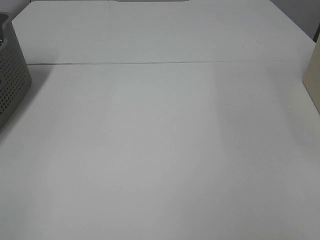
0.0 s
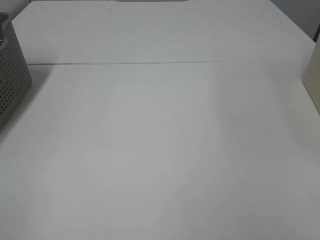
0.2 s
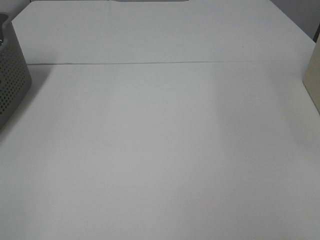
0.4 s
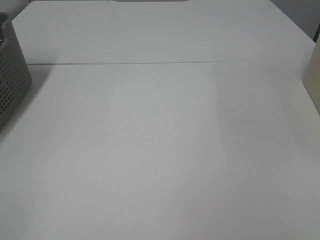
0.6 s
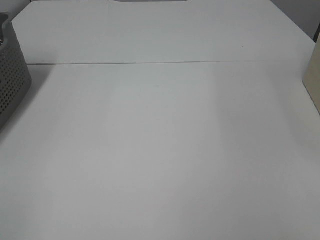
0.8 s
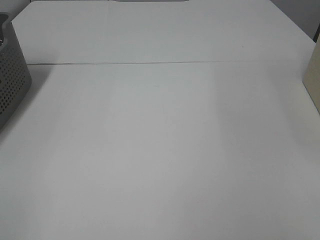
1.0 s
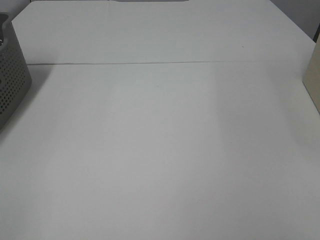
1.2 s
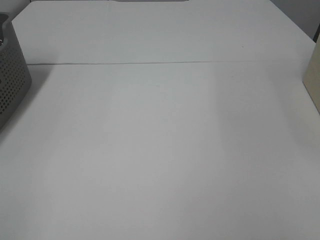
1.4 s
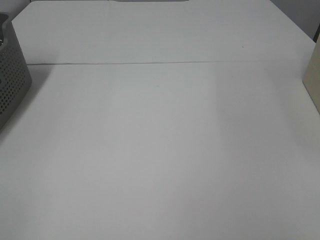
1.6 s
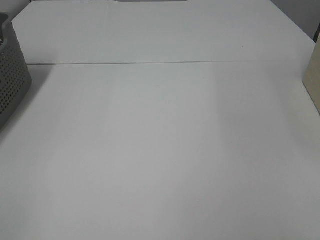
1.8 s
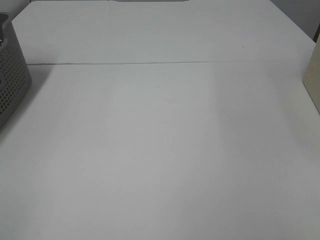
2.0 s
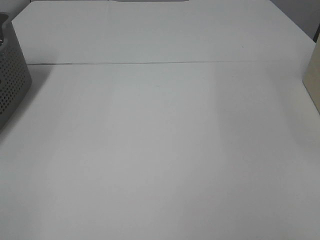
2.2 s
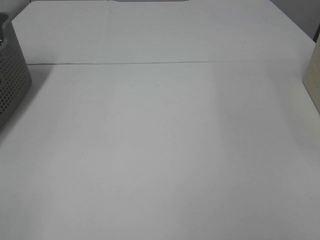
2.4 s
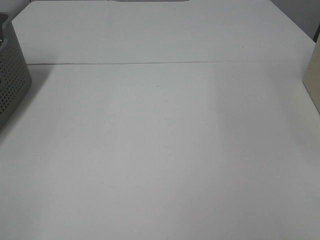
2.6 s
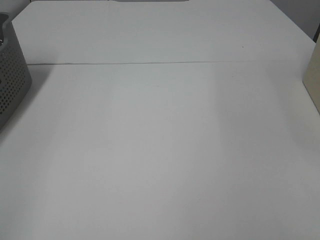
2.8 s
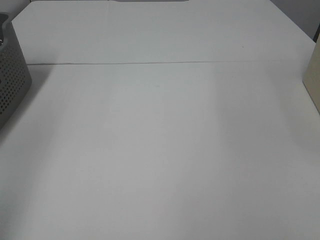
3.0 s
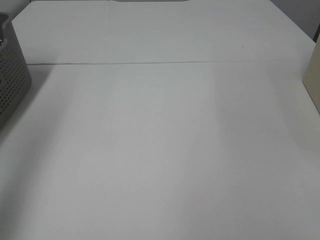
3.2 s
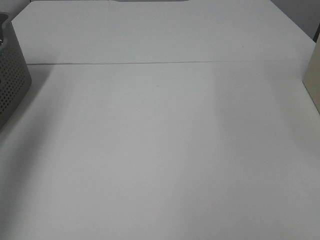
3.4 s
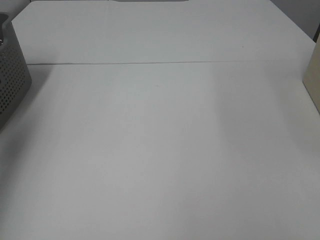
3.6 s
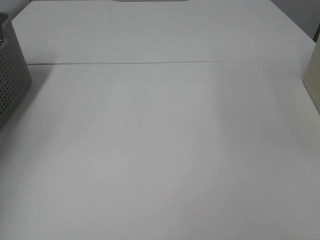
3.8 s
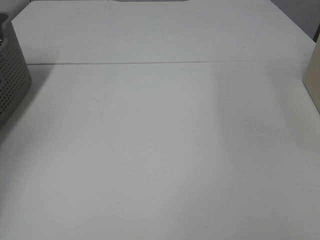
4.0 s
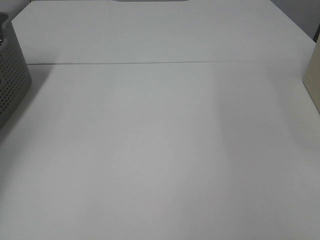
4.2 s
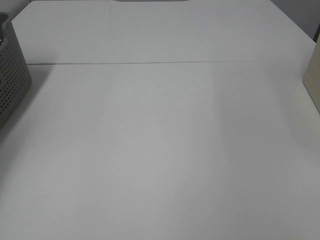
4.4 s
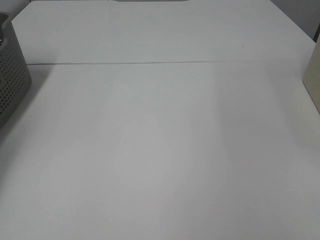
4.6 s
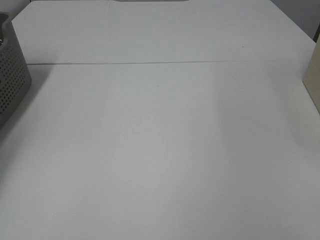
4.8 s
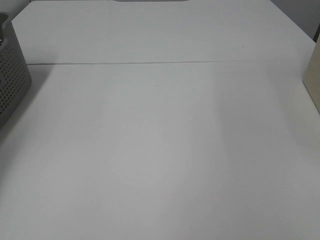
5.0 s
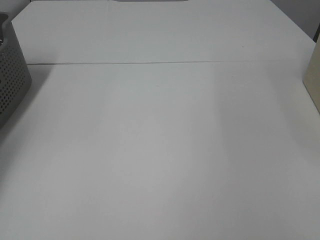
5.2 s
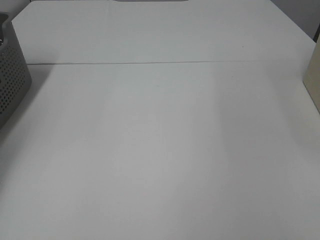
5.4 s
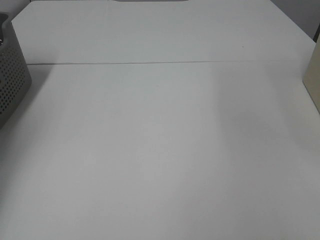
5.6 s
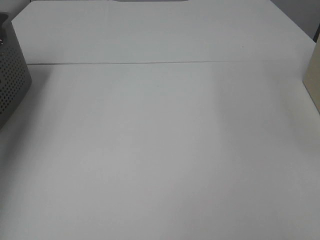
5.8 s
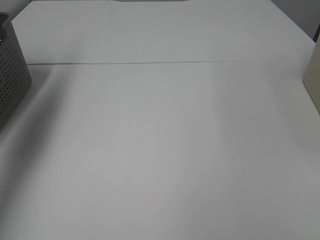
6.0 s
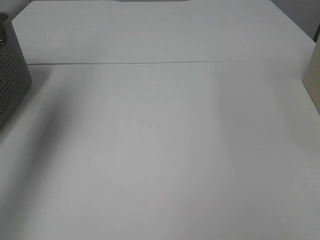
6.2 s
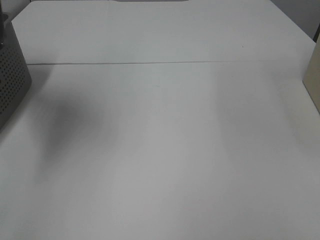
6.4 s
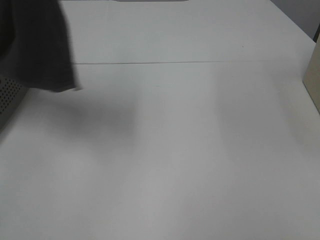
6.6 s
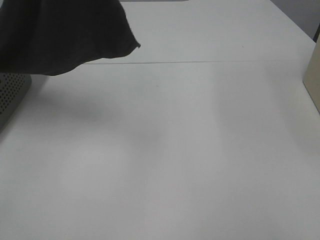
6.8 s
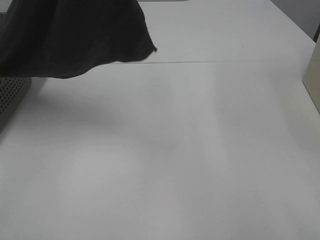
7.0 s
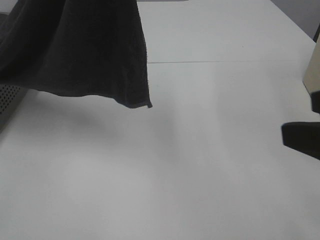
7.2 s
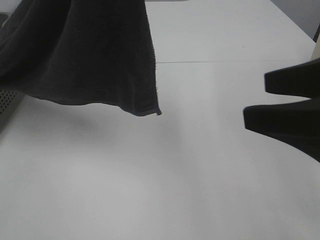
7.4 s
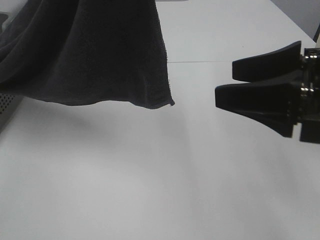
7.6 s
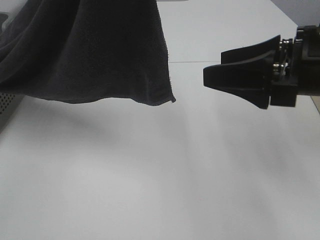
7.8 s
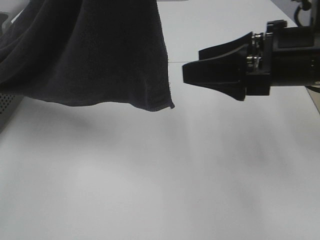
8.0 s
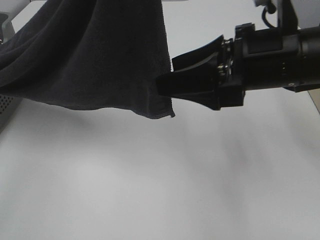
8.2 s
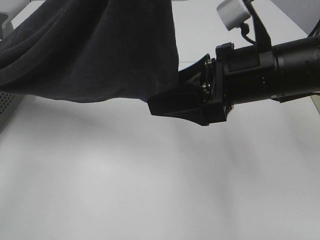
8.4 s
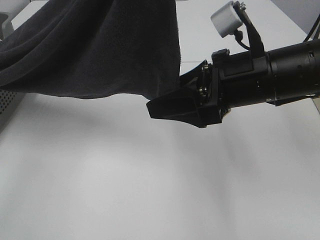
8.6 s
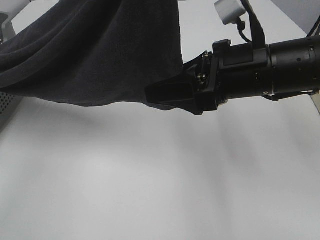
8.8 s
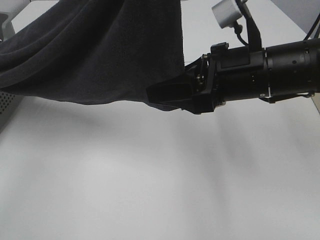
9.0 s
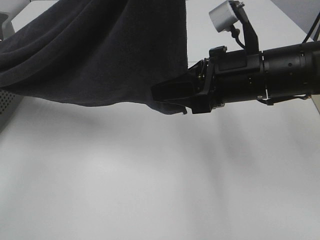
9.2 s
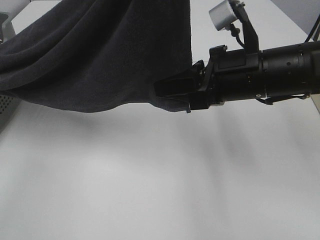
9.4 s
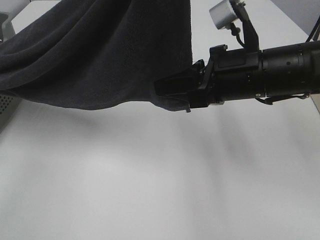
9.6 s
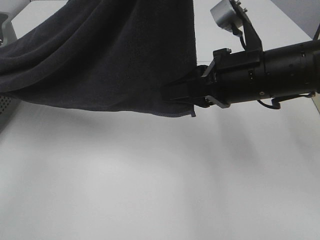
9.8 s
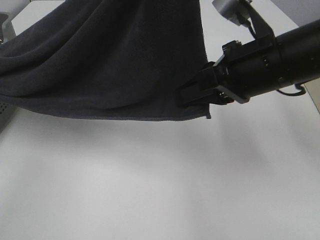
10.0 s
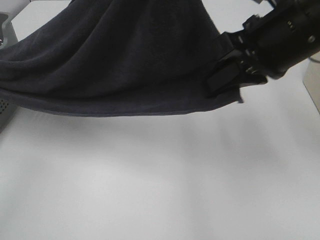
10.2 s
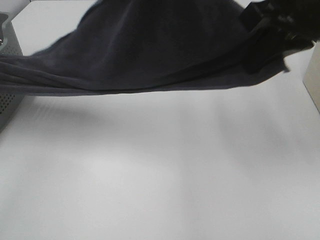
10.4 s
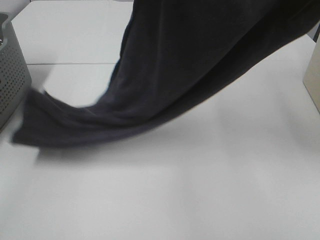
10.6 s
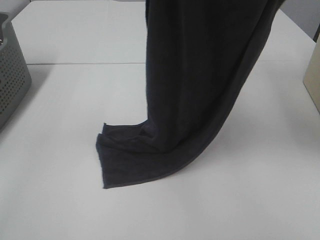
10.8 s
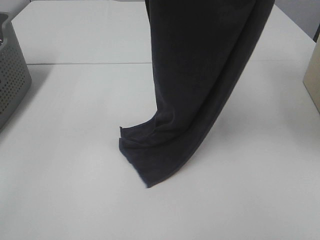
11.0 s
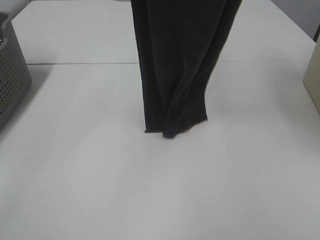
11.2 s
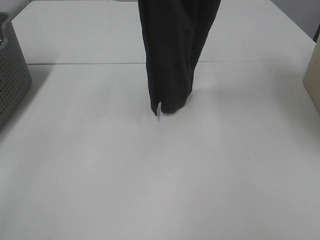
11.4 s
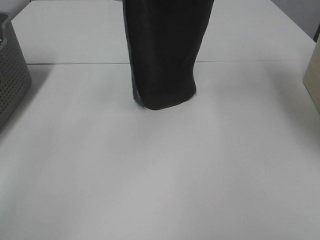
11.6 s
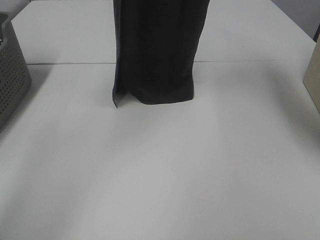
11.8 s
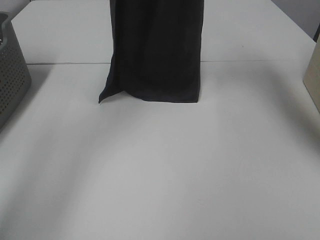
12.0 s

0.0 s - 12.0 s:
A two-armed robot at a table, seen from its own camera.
Task of the whole recording: Remove the towel and place it.
Step, 6.4 s - 11.4 s: Right hand: grab a corner of the grey towel and straighten it.
0.0 s - 1.6 s: Neither gripper changes place.
3.0 s - 4.4 s: The left gripper goes approximately 40 cm forward, downward and to the left.
4.4 s - 6.0 s: The left gripper shifts roughly 30 cm upward and to the right, and closes up.
6.0 s - 7.6 s: The right gripper travels forward and to the left by roughly 20 cm, while the left gripper moves to the right and backward, approximately 30 cm.
7.6 s - 9.0 s: The left gripper changes place by some 5 cm, while the right gripper travels forward and to the left by about 10 cm.
9.0 s - 10.4 s: The right gripper heads upward, covering about 15 cm, and closes.
10.4 s - 12.0 s: The left gripper travels forward and to the left by approximately 20 cm. The right gripper goes roughly 20 cm forward and upward.

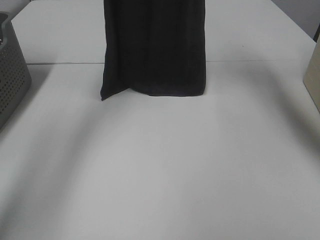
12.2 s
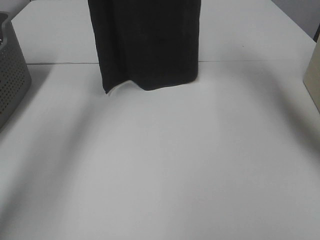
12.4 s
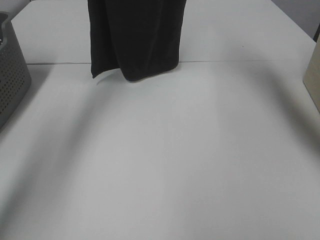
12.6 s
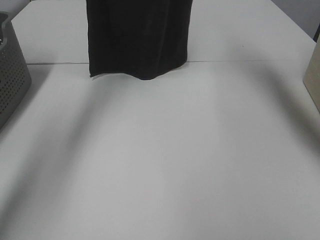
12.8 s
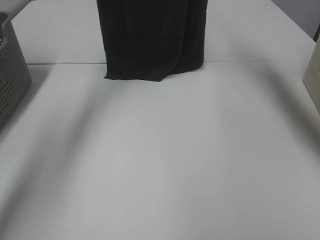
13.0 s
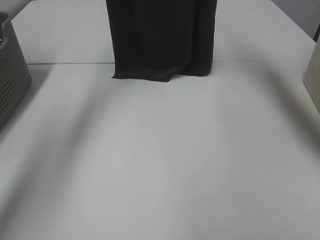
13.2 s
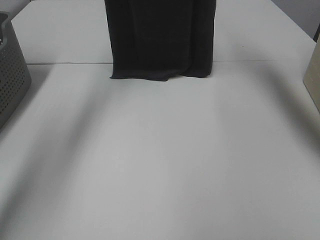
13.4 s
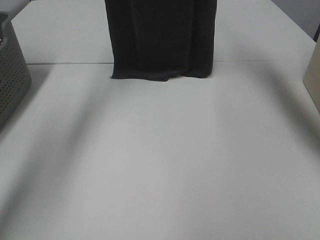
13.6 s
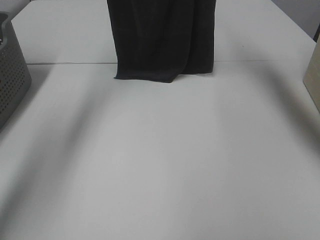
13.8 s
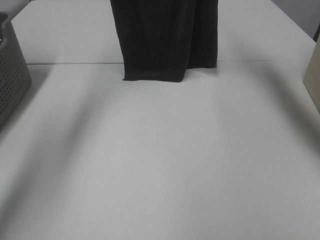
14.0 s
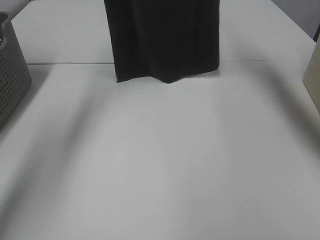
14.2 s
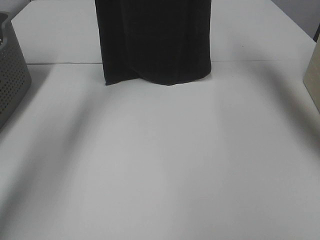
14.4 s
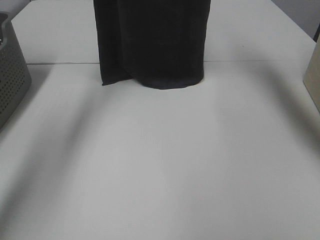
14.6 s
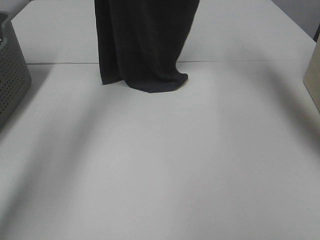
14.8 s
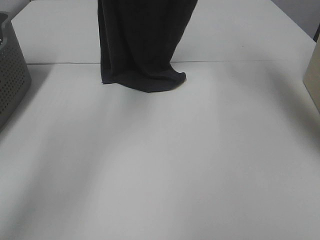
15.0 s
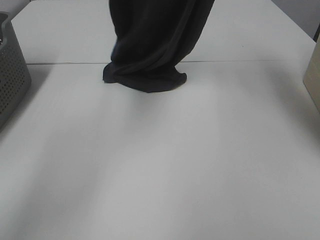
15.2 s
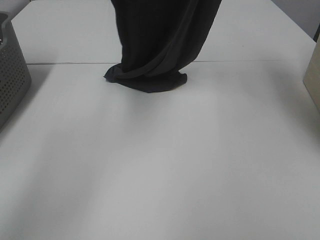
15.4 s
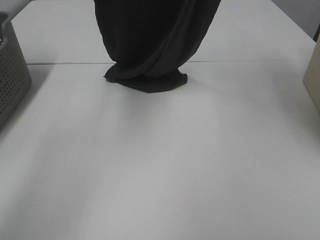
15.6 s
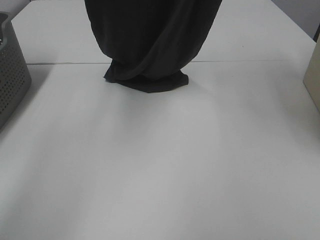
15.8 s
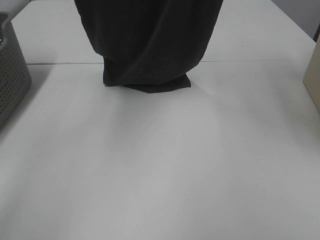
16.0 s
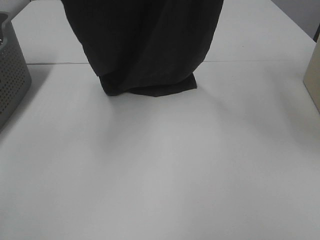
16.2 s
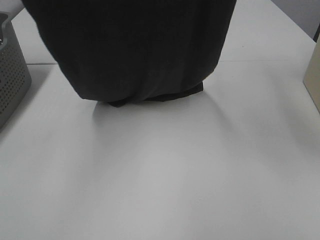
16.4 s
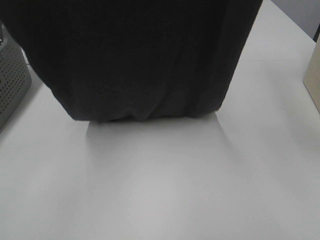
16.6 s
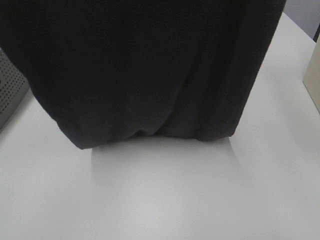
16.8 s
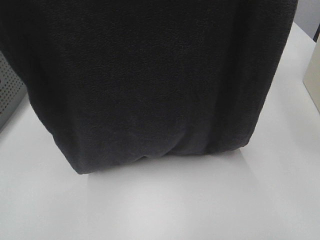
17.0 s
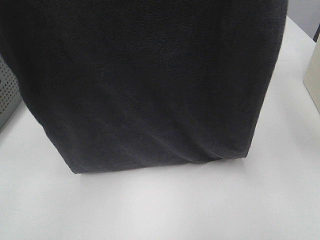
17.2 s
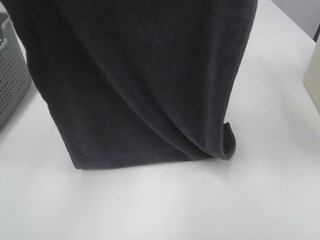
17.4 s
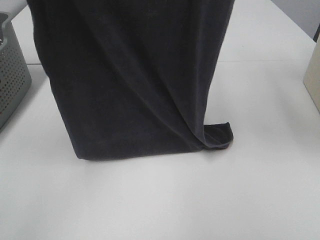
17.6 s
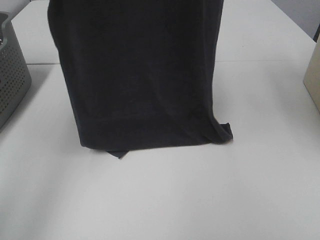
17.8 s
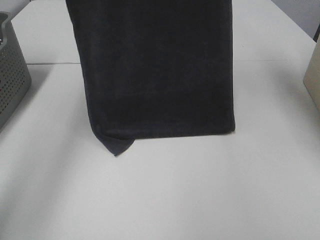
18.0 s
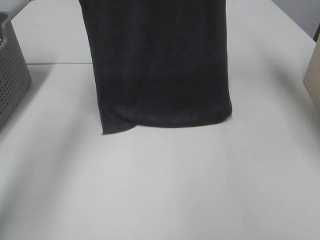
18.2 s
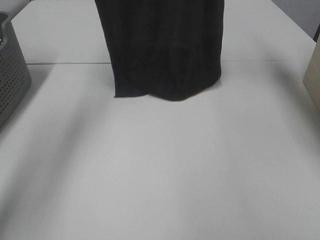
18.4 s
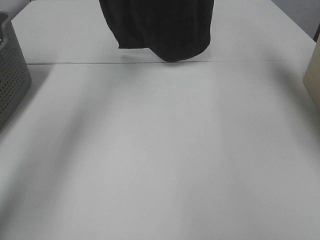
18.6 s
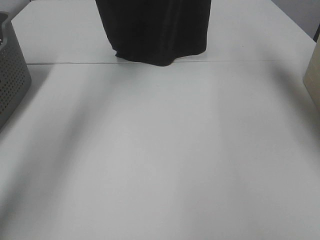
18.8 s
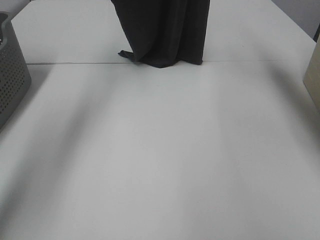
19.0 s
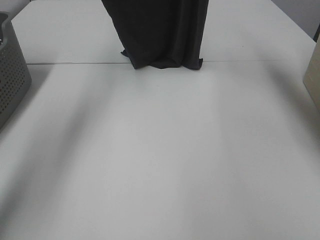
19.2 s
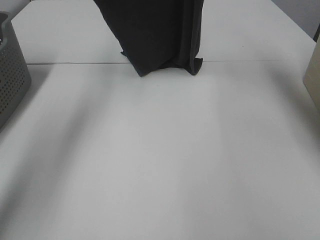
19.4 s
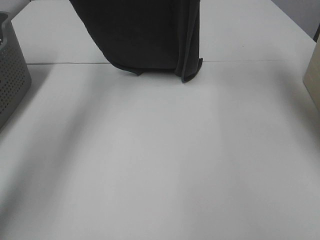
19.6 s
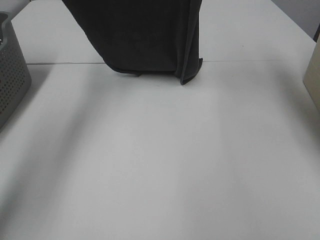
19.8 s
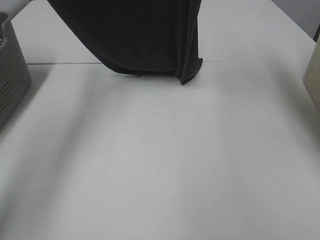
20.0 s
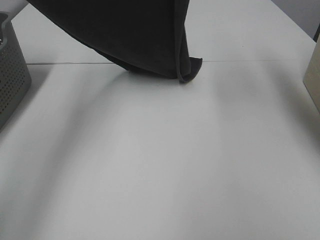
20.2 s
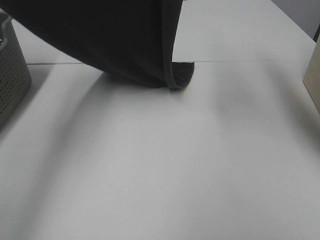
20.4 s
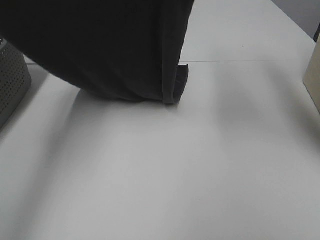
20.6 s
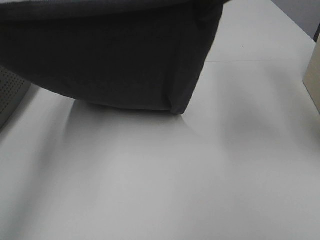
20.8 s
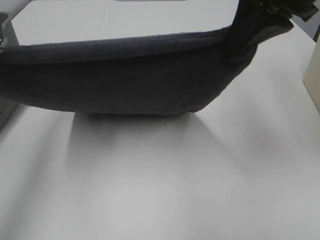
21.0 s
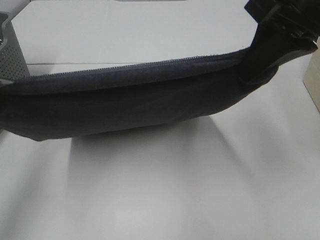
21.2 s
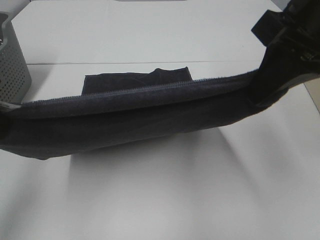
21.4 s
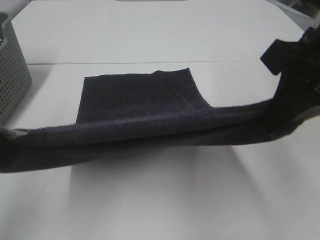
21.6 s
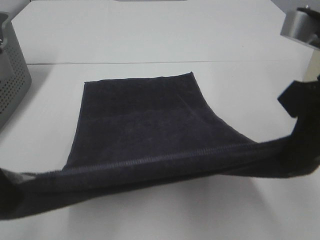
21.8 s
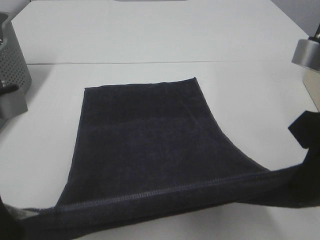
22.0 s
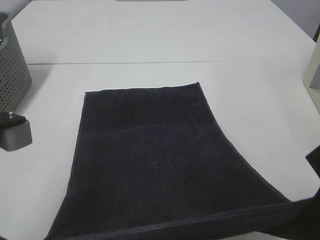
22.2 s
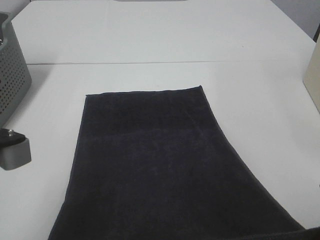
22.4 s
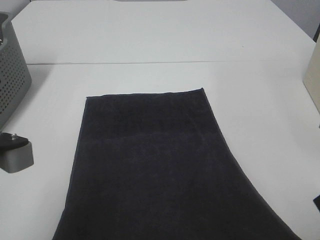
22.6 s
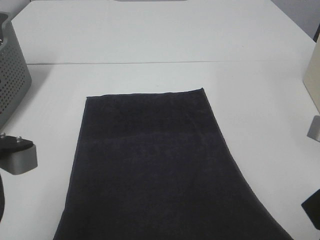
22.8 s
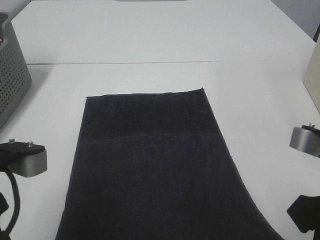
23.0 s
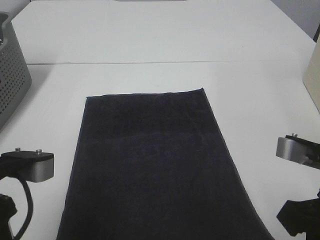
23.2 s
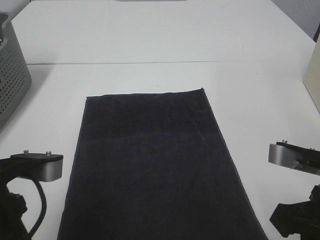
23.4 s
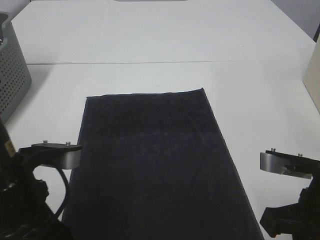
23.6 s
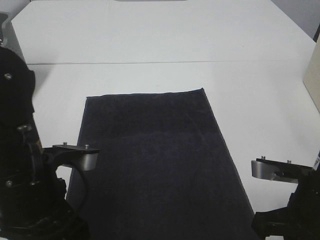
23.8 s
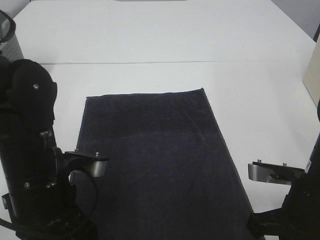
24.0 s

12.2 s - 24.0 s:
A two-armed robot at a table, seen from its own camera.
Task of the whole recording: Remove the towel and place it.
Step, 12.2 s - 20.4 s: Left hand: spread the grey towel flat on the table.
Step, 12.2 s - 20.4 s: Right hand: spread the grey towel flat on the table.
12.2 s - 13.6 s: The grippers move only a little.
13.6 s - 15.2 s: The right gripper is displaced backward by roughly 5 cm; the left gripper moves to the right, roughly 5 cm.
15.2 s - 16.6 s: Both grippers move backward, some 25 cm.
16.6 s - 18.2 s: Both grippers move forward, roughly 25 cm.
18.2 s - 19.6 s: The grippers both shift downward by about 5 cm.
19.6 s - 21.0 s: The right gripper moves backward and downward, roughly 20 cm, while the left gripper shifts roughly 25 cm backward.
21.0 s - 22.6 s: The right gripper heads backward and downward, covering some 20 cm. The left gripper goes approximately 15 cm downward, backward and to the right.
22.6 s - 24.0 s: The right gripper travels downward and forward by about 15 cm. The left gripper heads downward, forward and to the right, covering about 15 cm.
